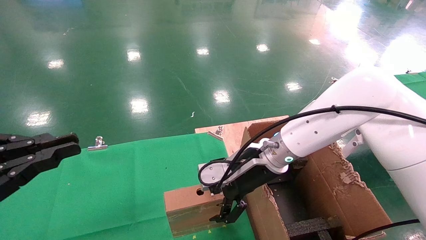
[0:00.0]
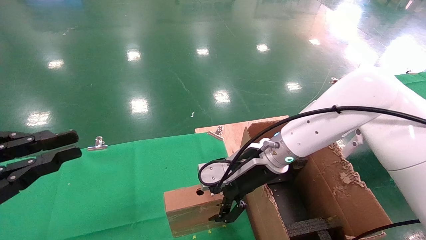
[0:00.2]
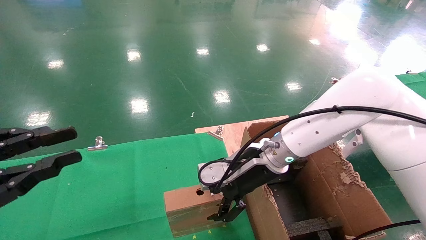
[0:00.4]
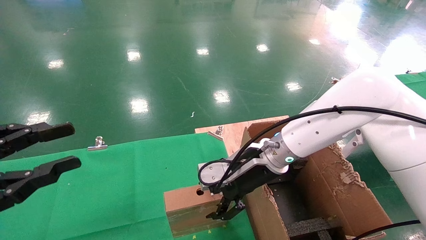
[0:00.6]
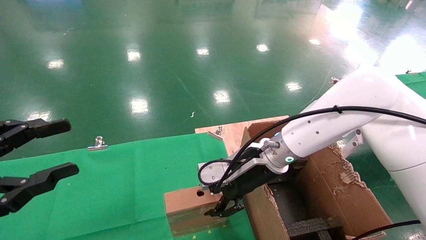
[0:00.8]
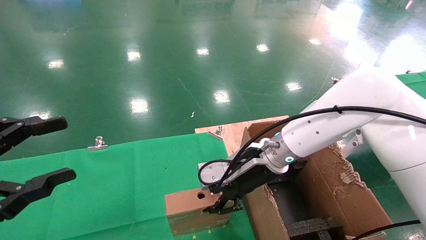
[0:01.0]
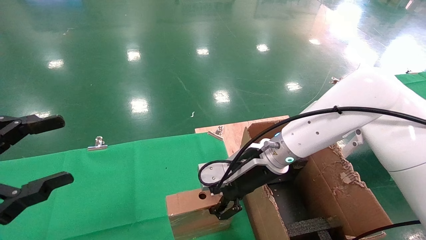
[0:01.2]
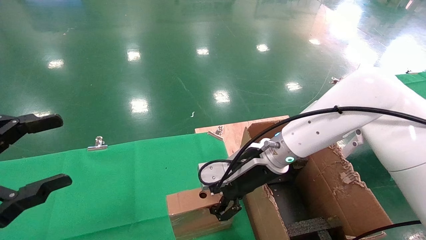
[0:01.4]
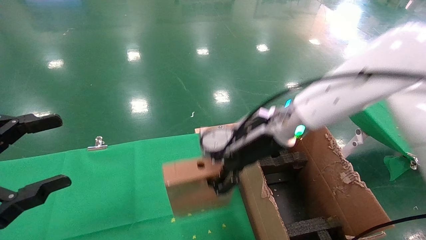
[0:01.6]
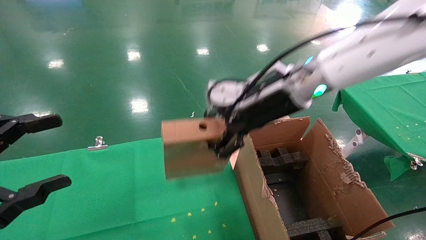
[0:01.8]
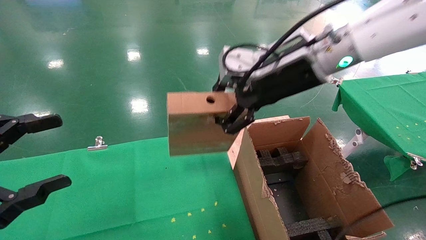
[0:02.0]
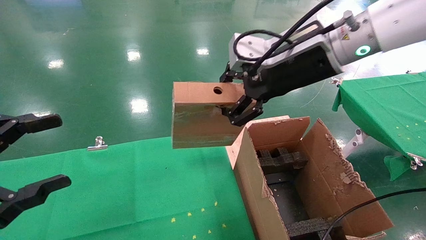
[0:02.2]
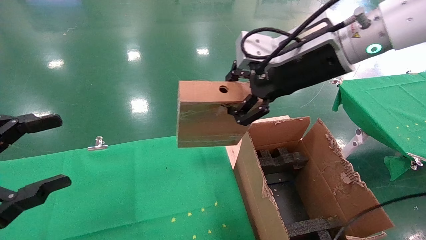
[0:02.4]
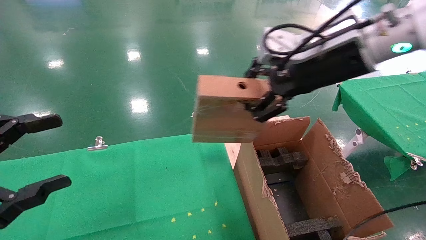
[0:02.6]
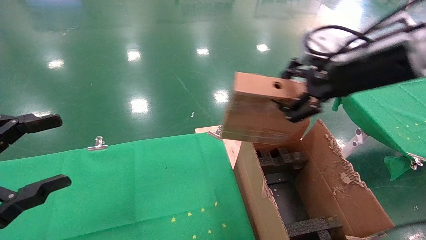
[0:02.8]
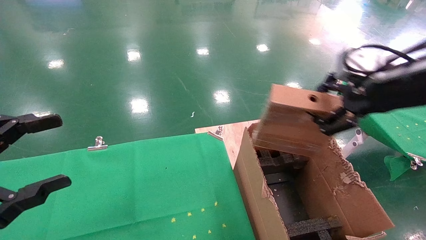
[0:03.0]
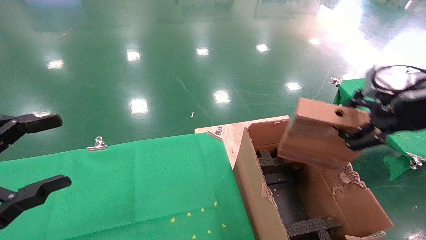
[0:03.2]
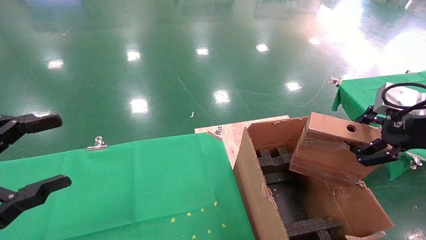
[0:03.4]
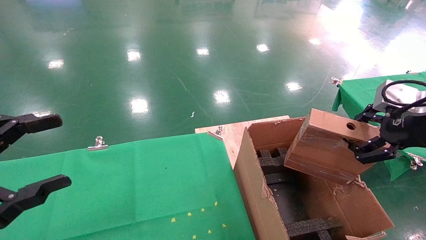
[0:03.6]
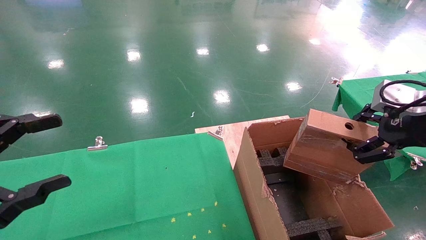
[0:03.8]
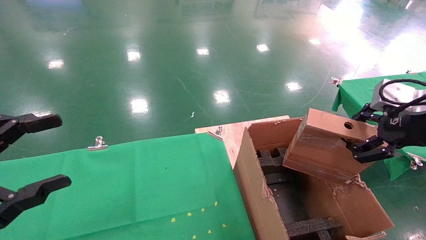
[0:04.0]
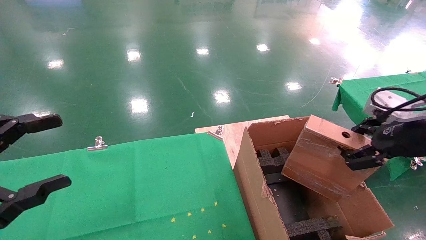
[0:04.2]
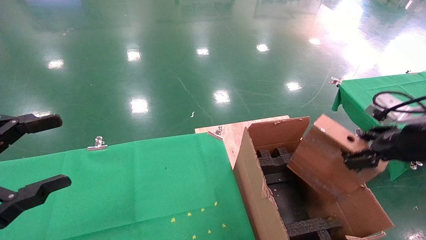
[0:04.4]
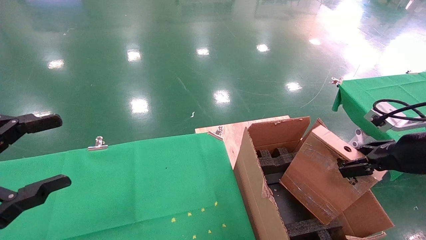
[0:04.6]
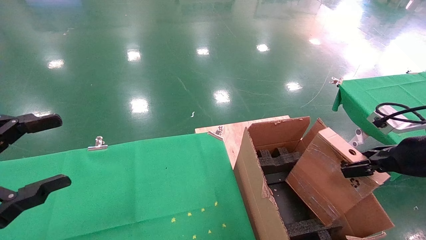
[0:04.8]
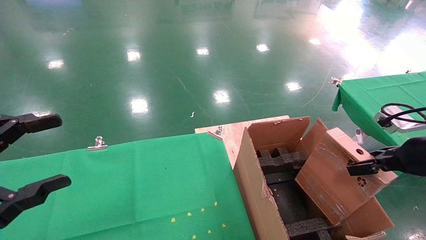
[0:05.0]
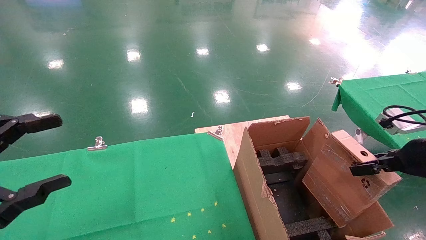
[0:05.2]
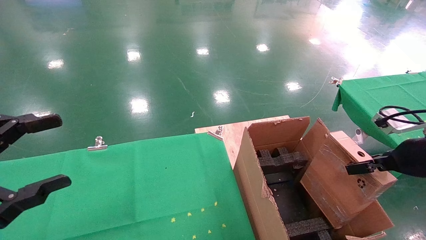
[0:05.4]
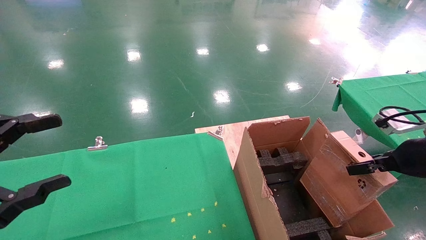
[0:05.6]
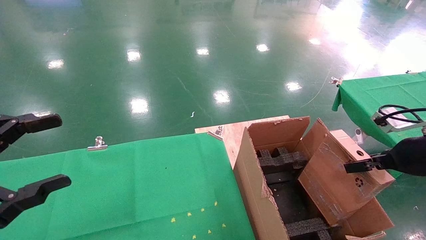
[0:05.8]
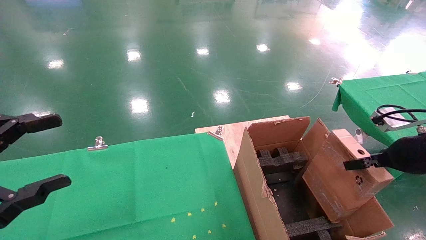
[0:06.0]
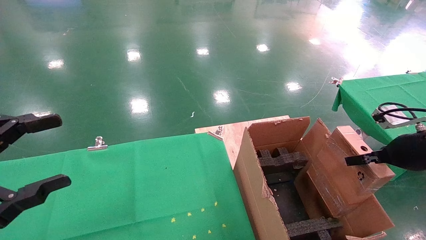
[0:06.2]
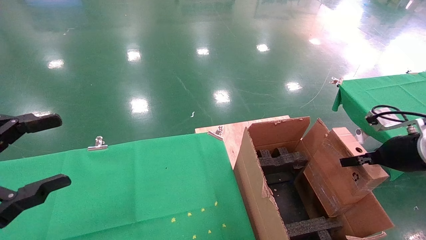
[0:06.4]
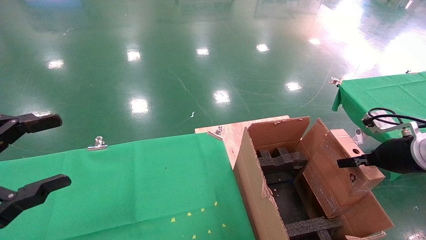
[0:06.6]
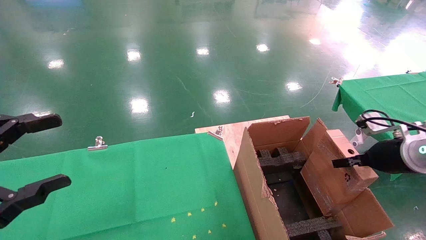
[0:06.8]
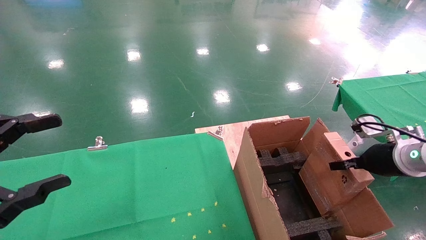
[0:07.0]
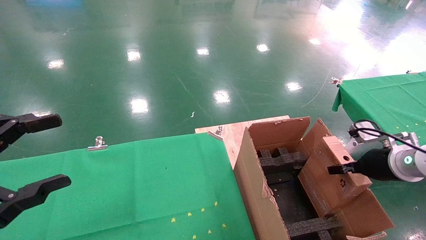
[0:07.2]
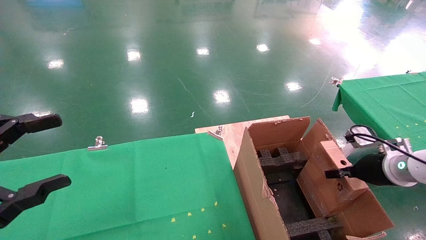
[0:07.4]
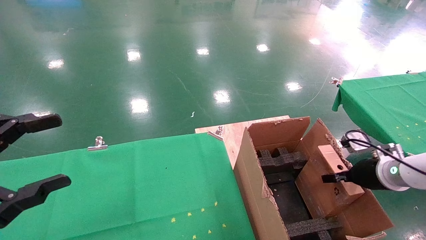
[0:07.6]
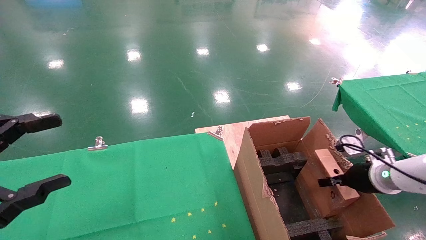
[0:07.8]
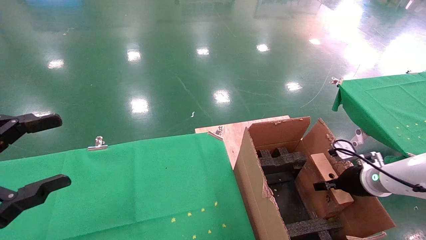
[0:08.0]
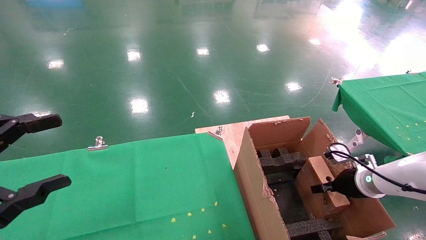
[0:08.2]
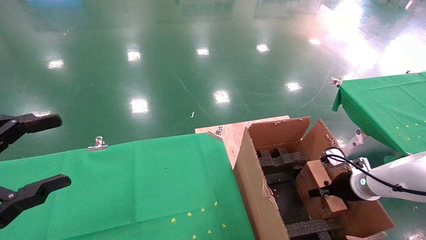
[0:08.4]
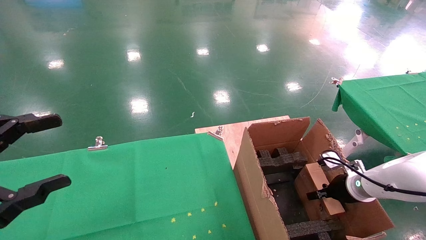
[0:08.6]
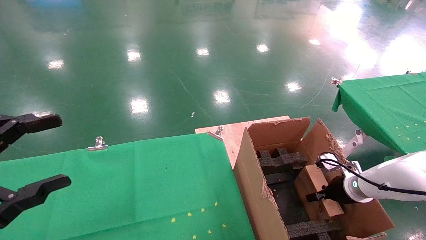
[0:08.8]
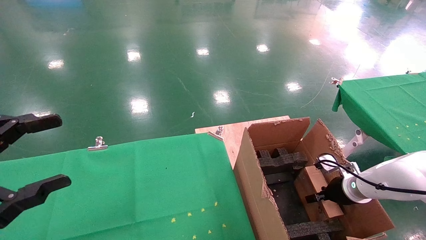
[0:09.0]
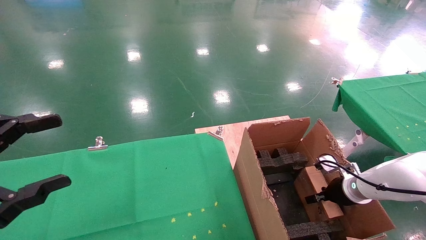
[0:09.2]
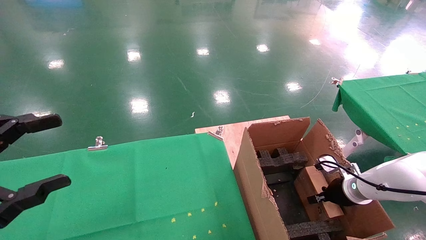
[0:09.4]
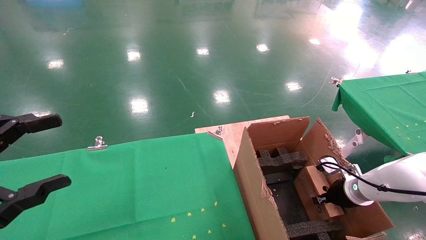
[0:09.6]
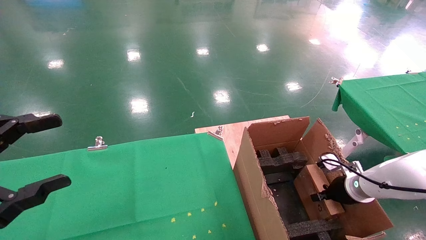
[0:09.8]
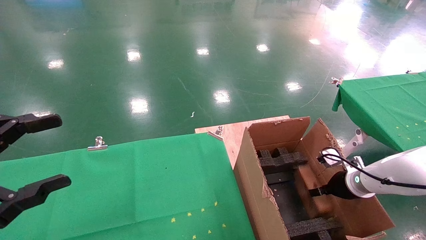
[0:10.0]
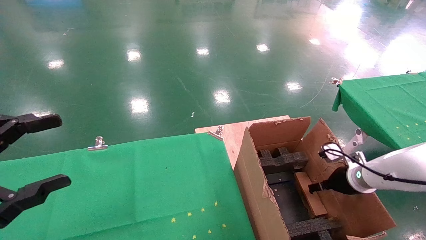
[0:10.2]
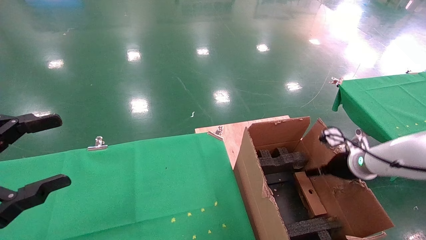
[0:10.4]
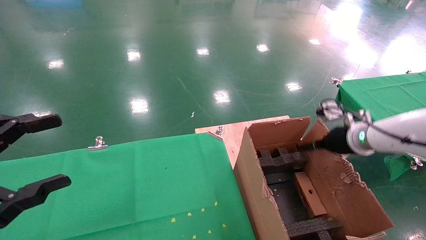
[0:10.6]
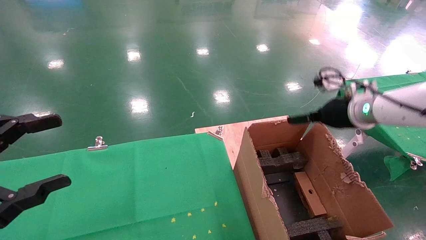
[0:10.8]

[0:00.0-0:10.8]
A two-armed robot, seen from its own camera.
Task of the whole recording: using a robotic arm to pick up a cardboard box and palace it the carton.
Step, 0:01.2 to 0:10.4: Place the mouse and the power cord paper box into the container.
0:00.0 to 0:01.6: The left gripper opens. Meanwhile the right gripper travels upward by about 10 cm, and closes up.
0:01.6 to 0:03.0: The right gripper travels to the right, backward and upward by about 25 cm.
0:03.0 to 0:04.6: The right gripper moves downward and to the right, about 15 cm.
0:04.6 to 0:06.2: The right gripper moves roughly 5 cm.
0:06.2 to 0:07.8: The right gripper travels downward and forward by approximately 10 cm.
0:07.8 to 0:09.2: The right gripper shifts approximately 5 cm downward.
0:09.2 to 0:10.8: The right gripper travels upward by about 20 cm, and opens its fingers.

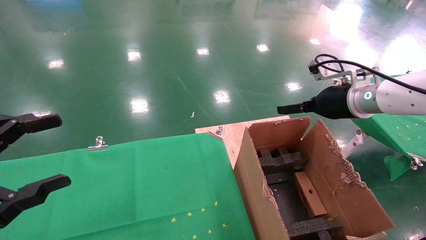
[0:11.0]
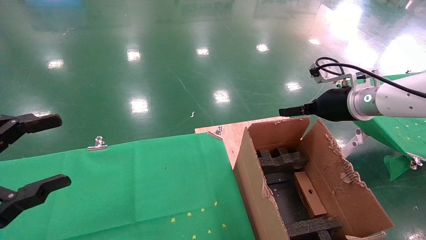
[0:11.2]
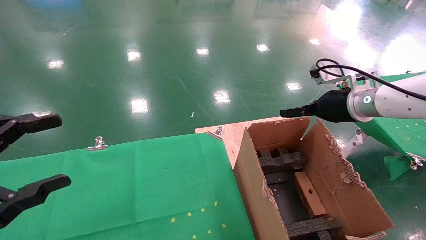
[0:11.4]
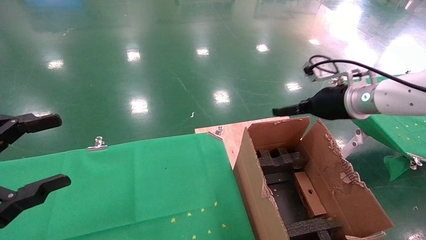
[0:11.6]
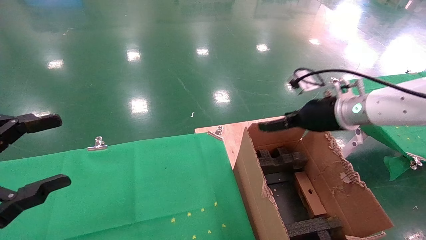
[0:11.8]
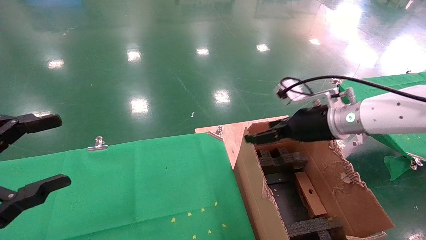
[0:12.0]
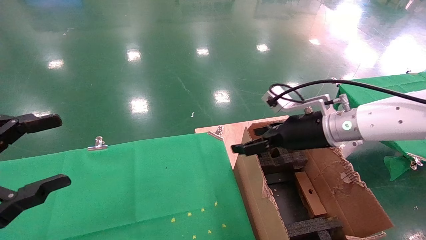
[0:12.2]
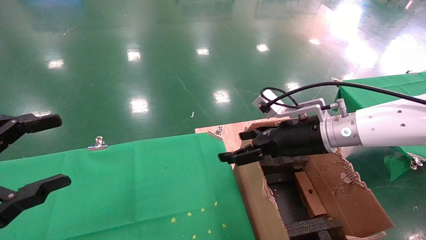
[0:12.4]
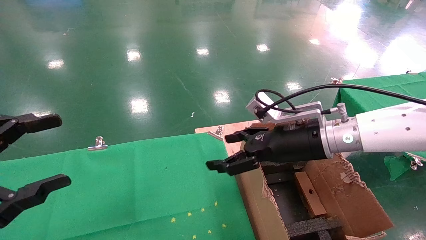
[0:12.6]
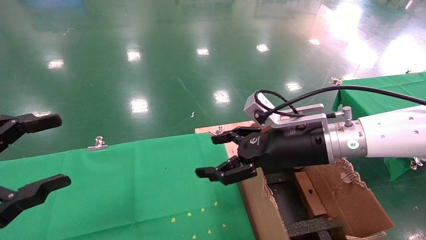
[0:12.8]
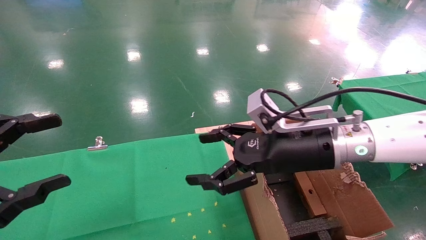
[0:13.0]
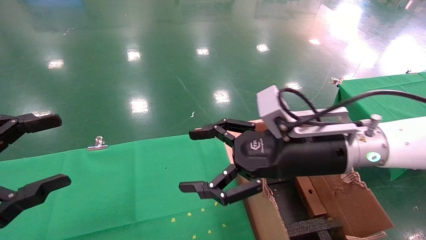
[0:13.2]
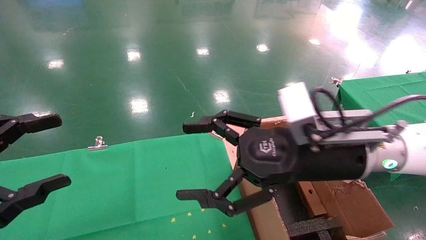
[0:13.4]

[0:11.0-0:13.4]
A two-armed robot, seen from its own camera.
Task of the whole recording: using a robotic arm to pick up a cardboard box and palace it the carton.
0:11.0 to 0:12.2: The right gripper goes about 10 cm to the left.
0:12.2 to 0:13.4: The right gripper goes about 10 cm backward and to the left.
